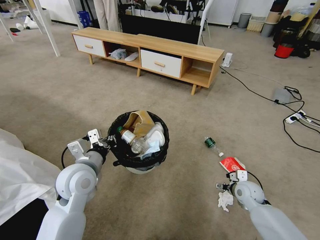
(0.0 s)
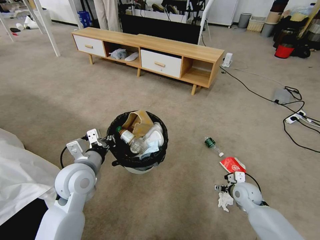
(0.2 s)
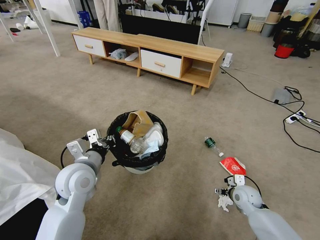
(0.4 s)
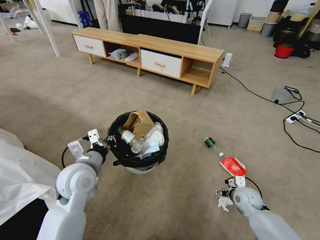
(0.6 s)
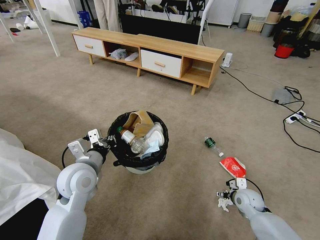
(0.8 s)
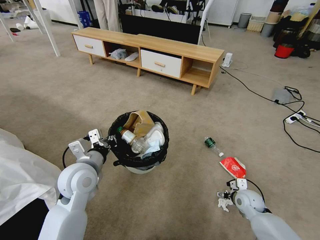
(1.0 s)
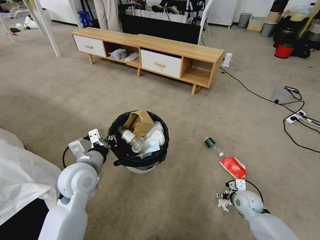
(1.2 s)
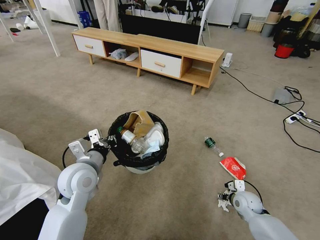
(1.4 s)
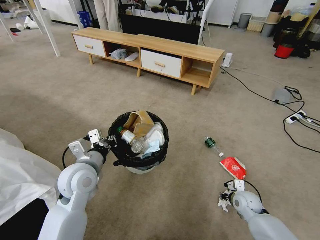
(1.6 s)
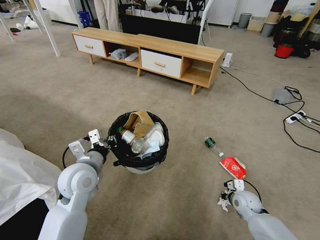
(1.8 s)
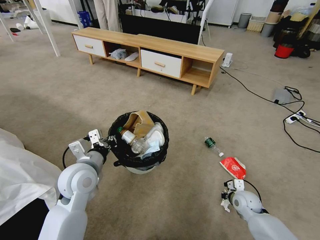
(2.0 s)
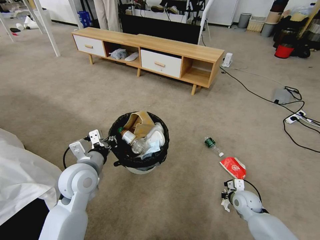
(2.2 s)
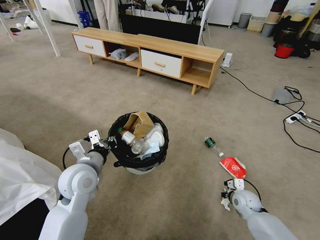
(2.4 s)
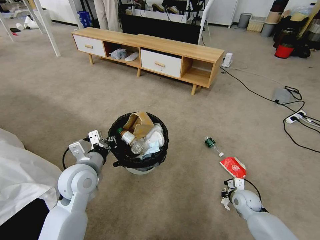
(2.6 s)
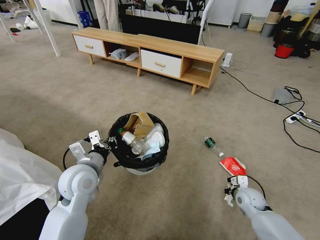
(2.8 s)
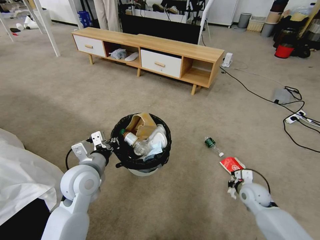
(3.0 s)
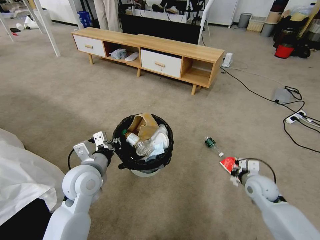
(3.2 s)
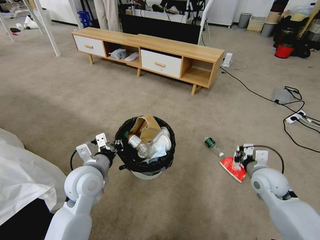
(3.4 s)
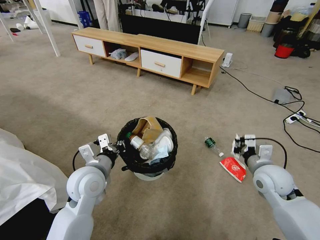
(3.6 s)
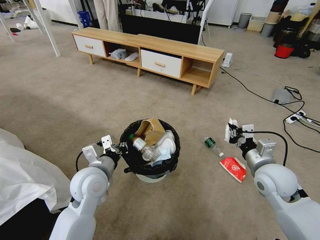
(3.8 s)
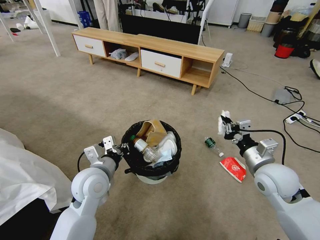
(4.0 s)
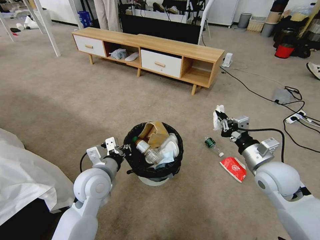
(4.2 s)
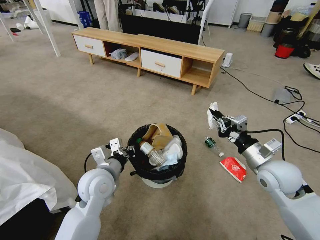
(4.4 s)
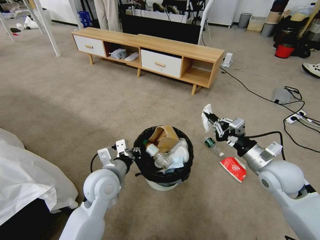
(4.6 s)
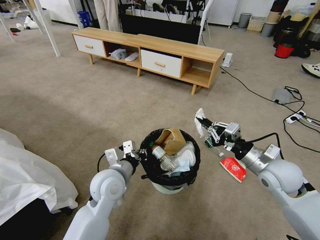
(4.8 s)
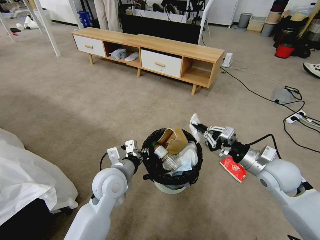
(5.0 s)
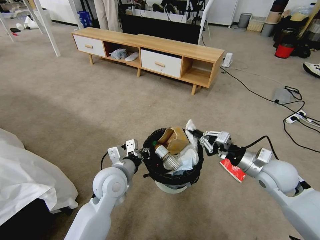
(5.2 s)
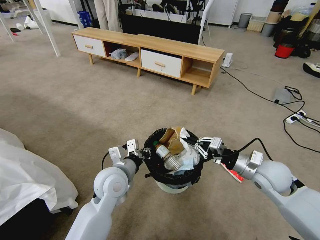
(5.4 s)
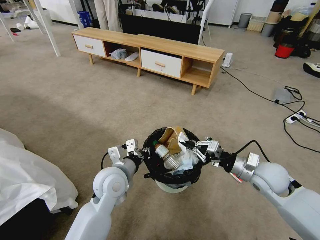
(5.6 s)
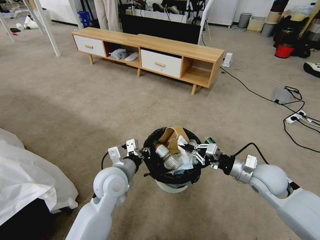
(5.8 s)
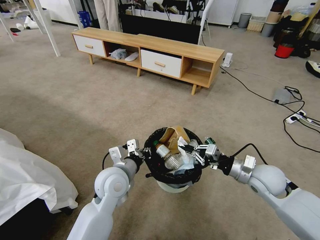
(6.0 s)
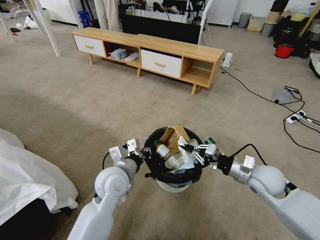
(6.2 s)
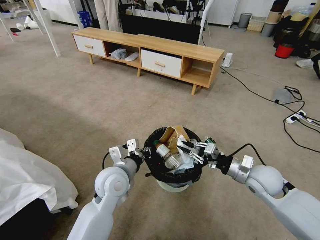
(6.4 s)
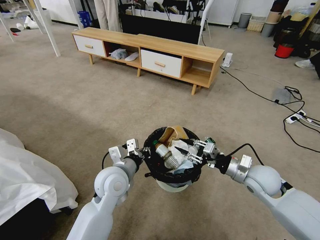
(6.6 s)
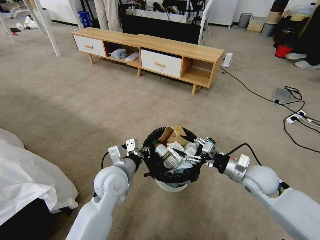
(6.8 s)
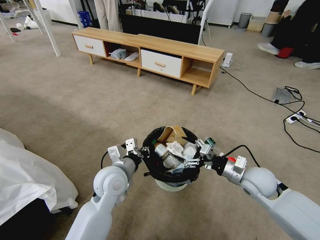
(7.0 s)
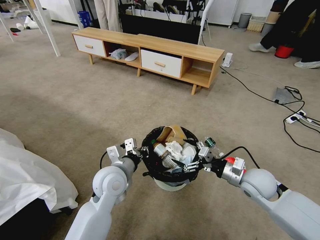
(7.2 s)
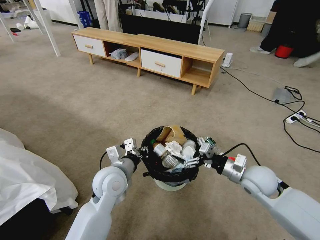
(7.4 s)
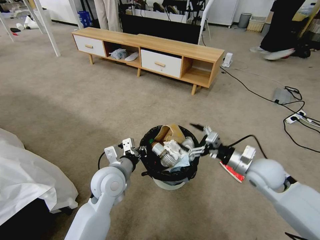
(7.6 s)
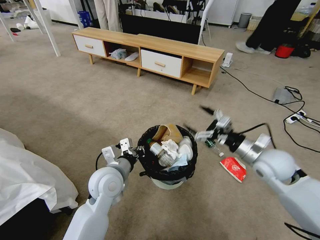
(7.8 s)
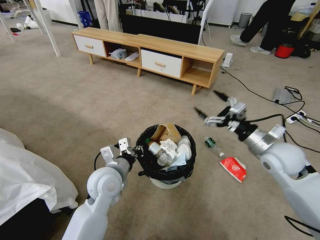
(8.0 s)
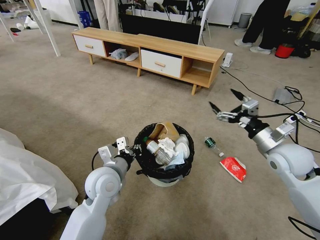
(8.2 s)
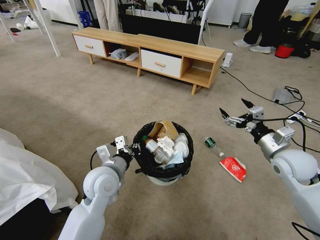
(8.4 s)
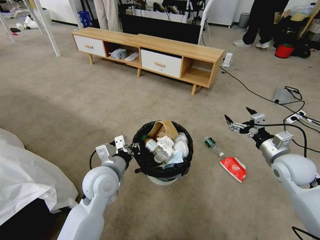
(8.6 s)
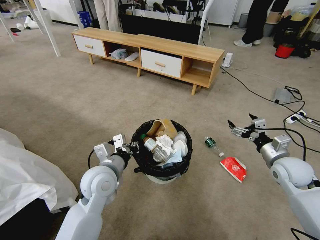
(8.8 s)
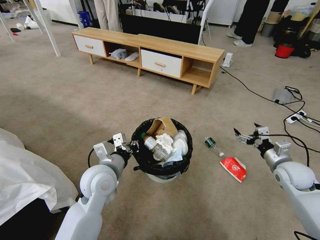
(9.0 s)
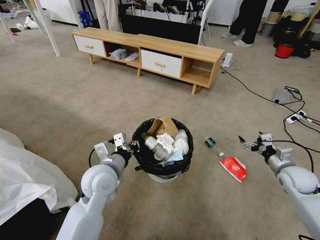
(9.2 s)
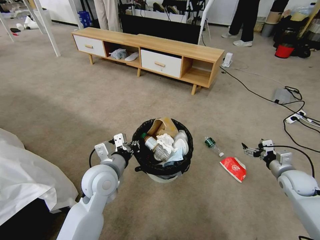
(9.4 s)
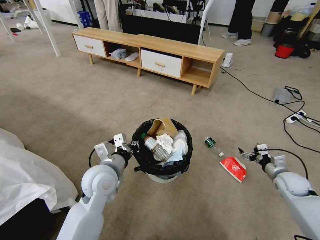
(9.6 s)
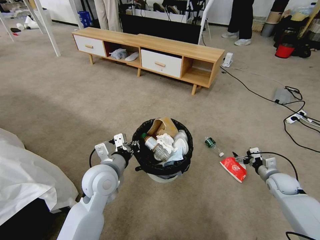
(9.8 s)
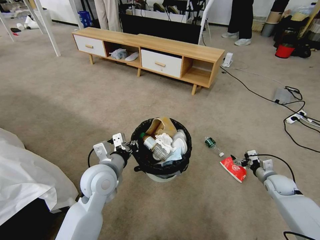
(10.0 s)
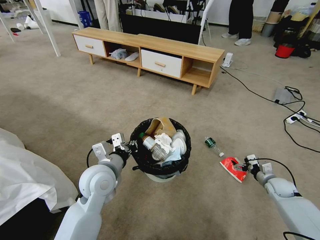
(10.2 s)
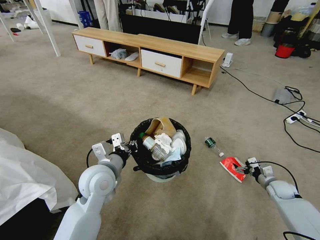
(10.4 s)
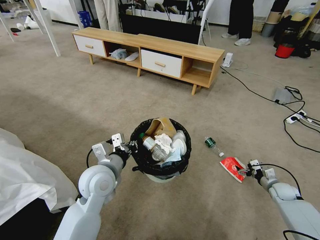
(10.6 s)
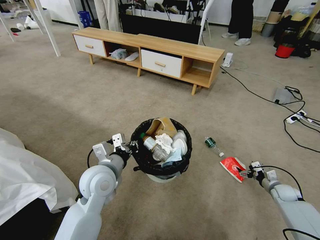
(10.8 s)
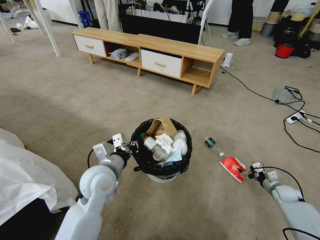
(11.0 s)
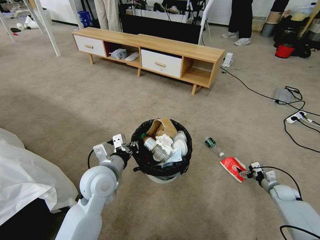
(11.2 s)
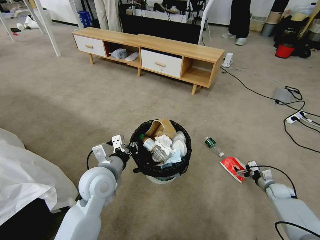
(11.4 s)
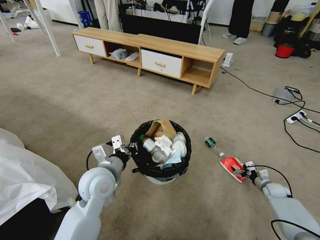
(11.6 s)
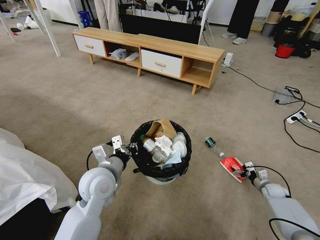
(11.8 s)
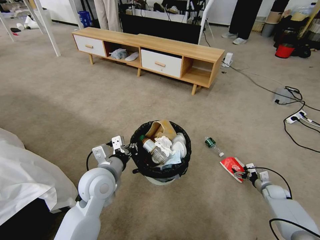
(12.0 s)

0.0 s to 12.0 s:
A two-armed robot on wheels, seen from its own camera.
Task of the whole recording: Pick up the trash bin and place the garbage on the floor into it.
0.0 to 1.6 s: The right gripper closes.
1.6 to 3.0 s: The right gripper moves some 5 cm, and closes up.
3.0 to 4.4 s: The right gripper travels upward by roughly 20 cm.
4.4 to 6.0 s: The right gripper changes place by some 5 cm.
6.0 to 7.6 s: The right gripper opens.
7.6 to 9.0 s: The right gripper travels to the right by about 10 cm.
9.0 to 10.4 s: The right gripper heads downward and to the right, covering about 20 cm.
10.4 to 12.0 s: The right gripper goes some 5 cm downward.

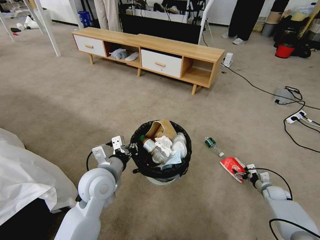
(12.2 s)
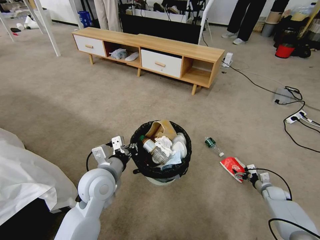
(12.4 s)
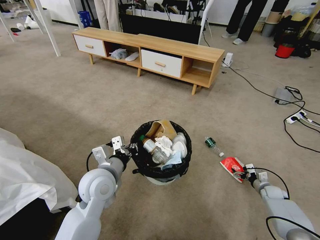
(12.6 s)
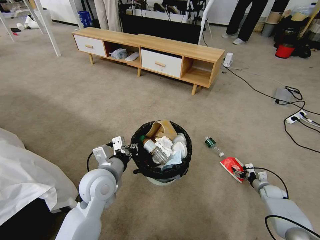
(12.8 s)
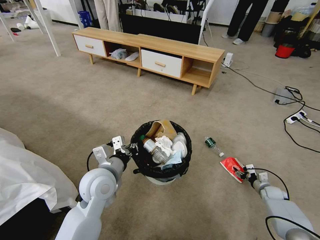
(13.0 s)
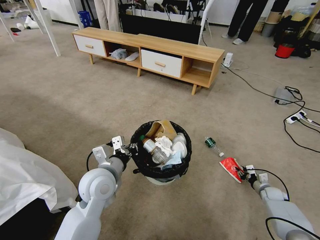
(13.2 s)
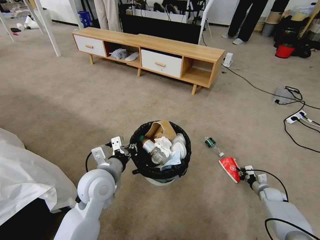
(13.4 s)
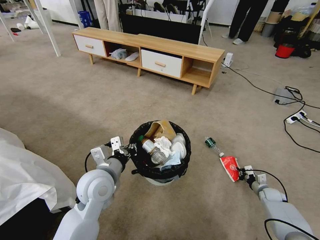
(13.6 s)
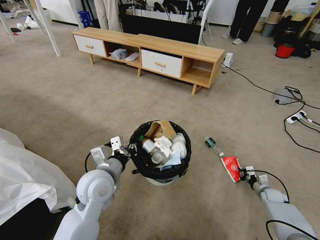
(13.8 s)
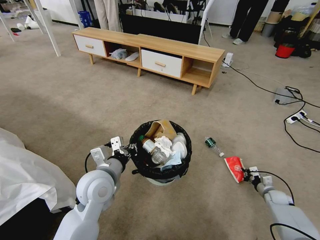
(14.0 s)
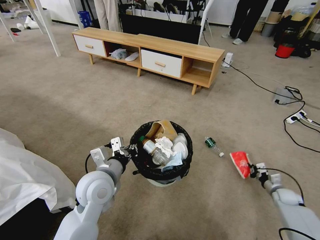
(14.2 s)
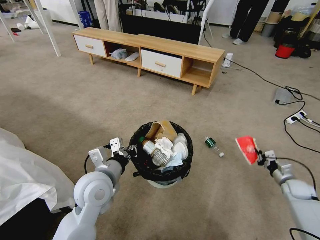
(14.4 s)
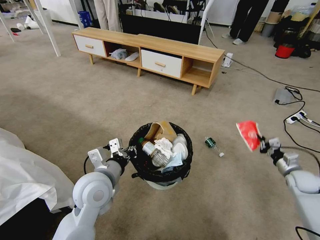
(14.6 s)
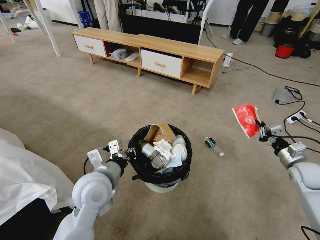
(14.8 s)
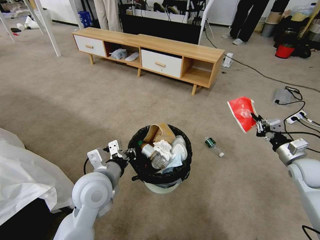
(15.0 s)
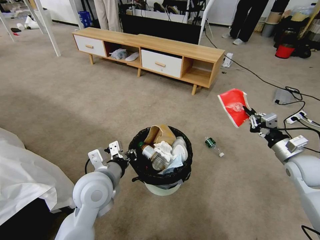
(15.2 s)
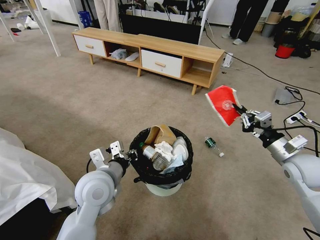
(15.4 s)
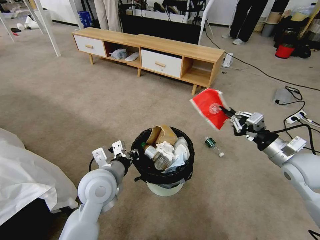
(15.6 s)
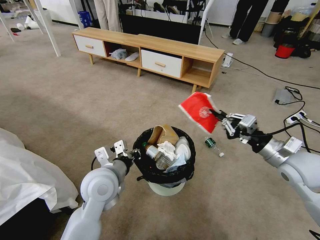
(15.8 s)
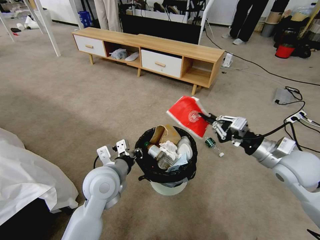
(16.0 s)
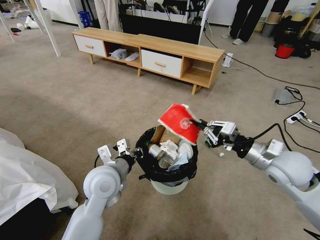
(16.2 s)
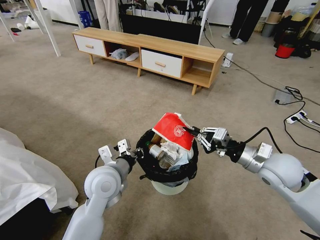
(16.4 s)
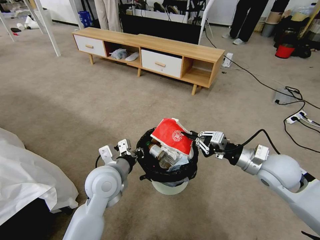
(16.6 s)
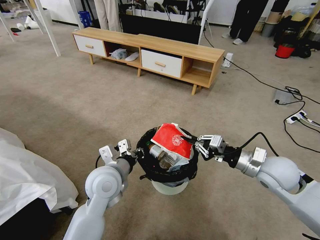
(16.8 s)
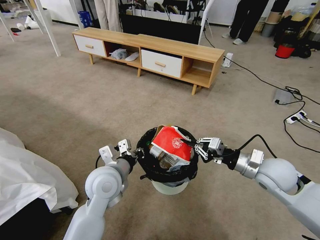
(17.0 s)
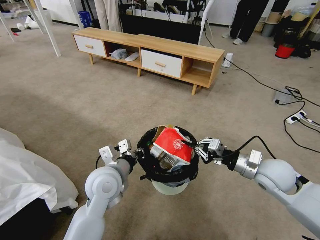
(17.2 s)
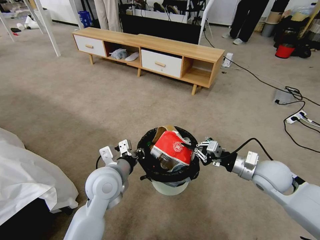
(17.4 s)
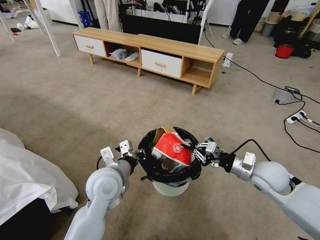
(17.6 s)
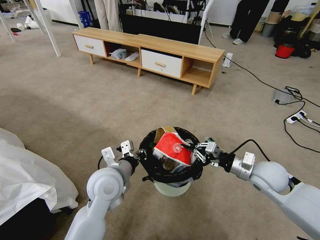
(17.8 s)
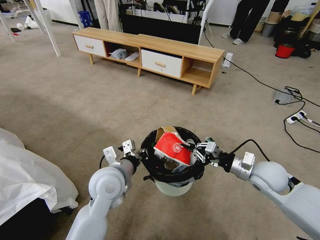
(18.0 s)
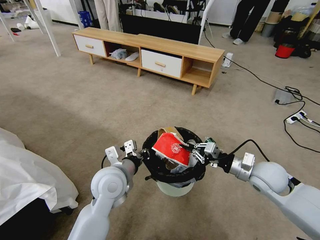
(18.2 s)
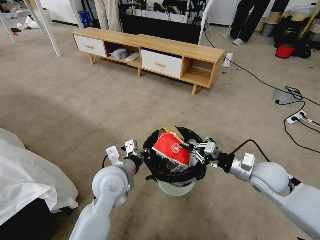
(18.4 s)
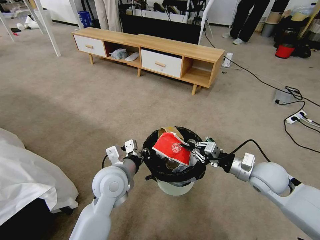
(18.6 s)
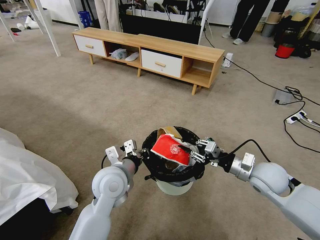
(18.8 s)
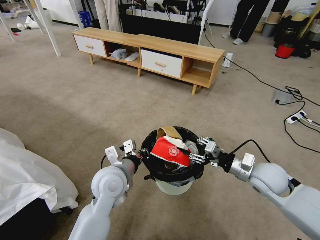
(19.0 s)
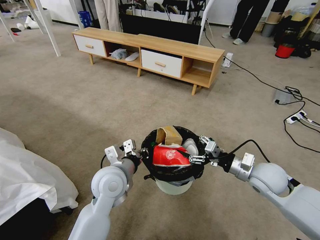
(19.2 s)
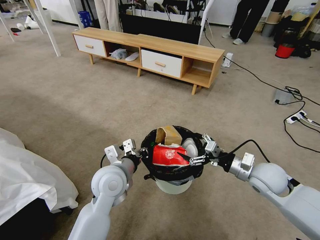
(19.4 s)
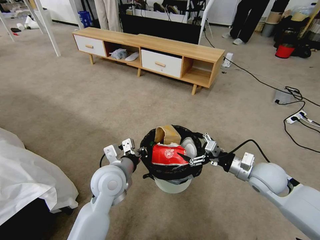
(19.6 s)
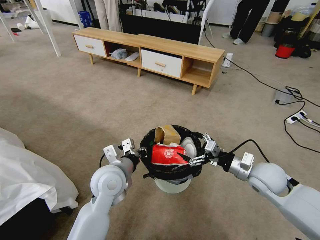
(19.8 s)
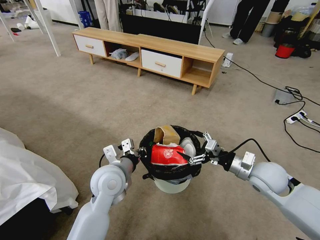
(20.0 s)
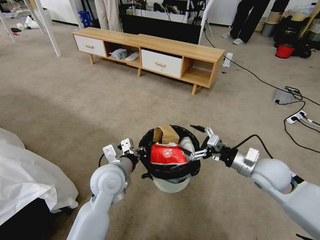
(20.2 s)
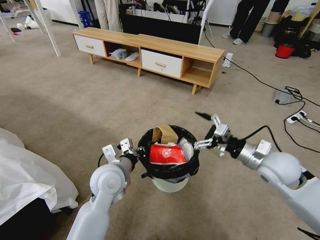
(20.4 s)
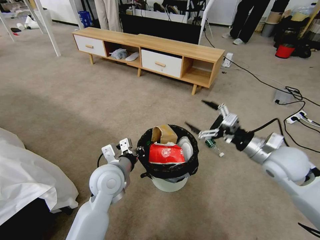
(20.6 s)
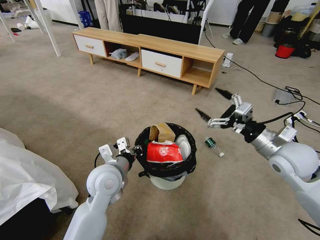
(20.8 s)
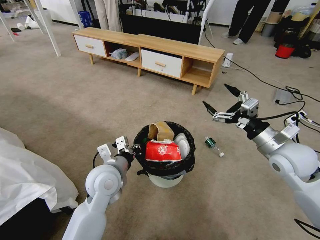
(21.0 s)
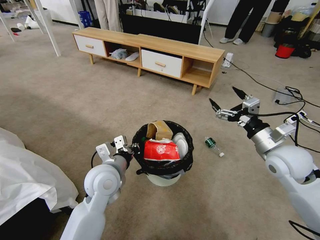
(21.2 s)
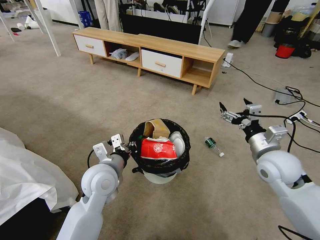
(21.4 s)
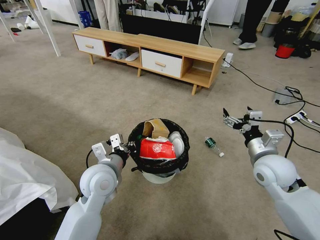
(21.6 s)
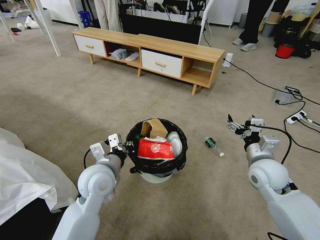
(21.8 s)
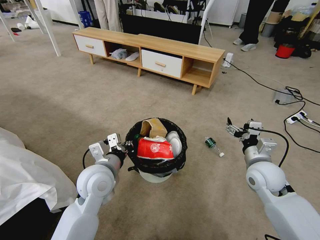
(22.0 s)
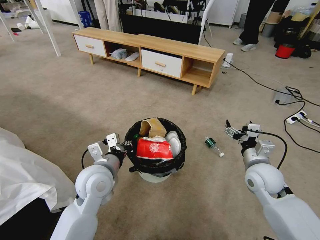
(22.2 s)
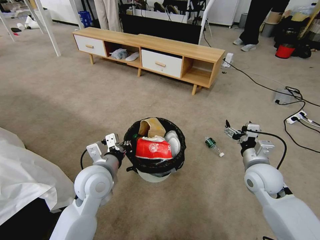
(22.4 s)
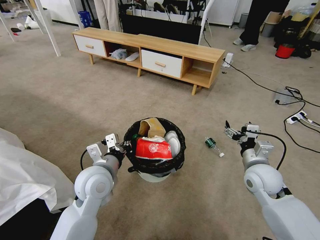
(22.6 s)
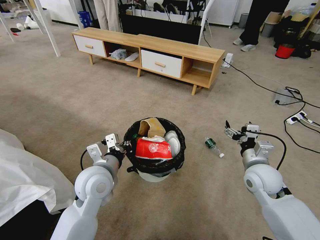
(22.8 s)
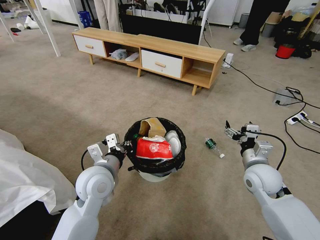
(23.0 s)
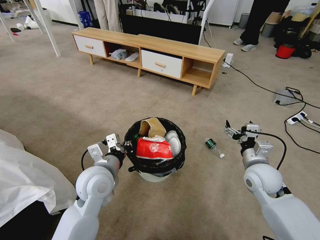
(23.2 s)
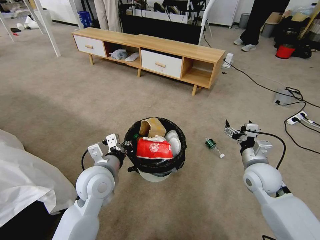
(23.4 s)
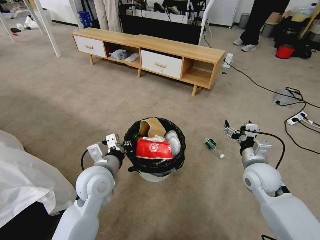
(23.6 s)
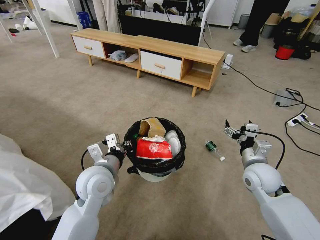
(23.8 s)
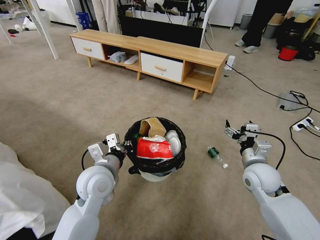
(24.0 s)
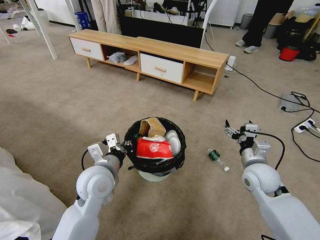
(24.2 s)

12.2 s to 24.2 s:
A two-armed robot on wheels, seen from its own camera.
Task of the whole recording: Pick up the trash bin and place the garbage on the floor into it.
12.2 to 13.8 s: The right gripper closes its fingers.
13.8 to 15.2 s: The right gripper shifts some 30 cm upward.
15.2 to 16.6 s: The right gripper heads to the left, covering roughly 10 cm.
16.6 to 18.2 s: The grippers make only small movements.
18.2 to 19.8 s: The right gripper opens its fingers.
19.8 to 21.2 s: The right gripper travels upward by about 10 cm.
21.2 to 22.6 s: The right gripper goes approximately 10 cm downward.
